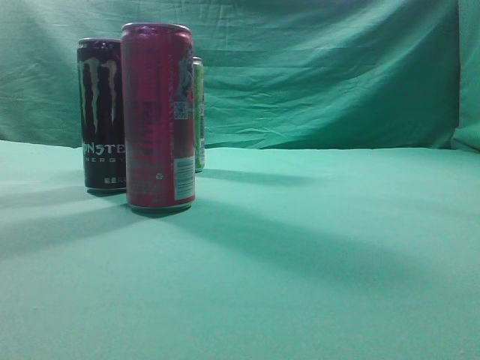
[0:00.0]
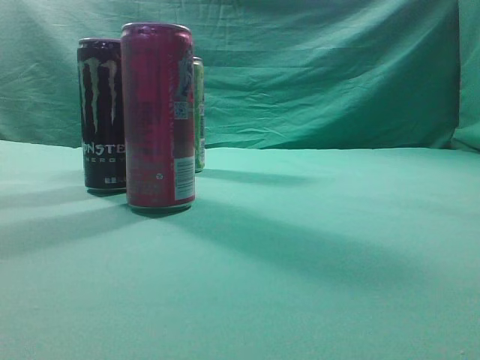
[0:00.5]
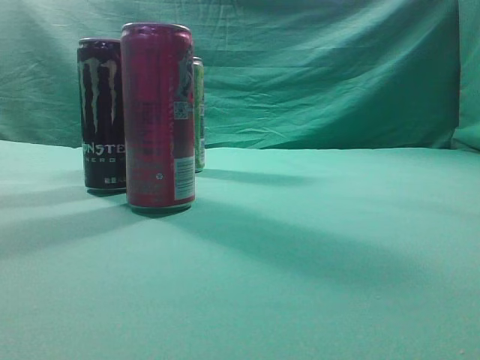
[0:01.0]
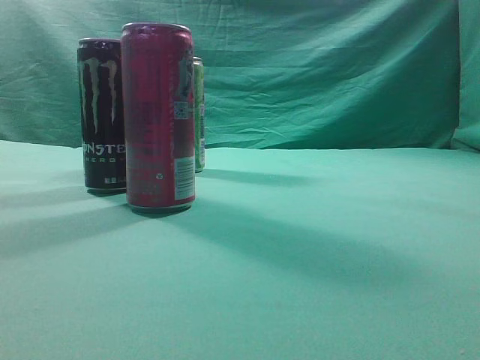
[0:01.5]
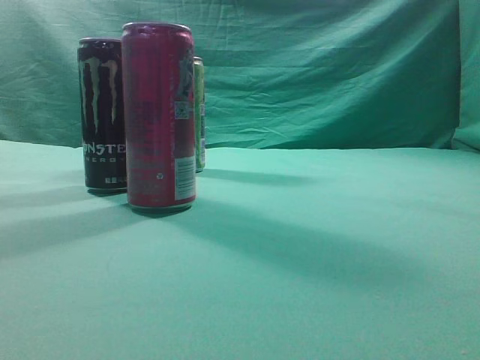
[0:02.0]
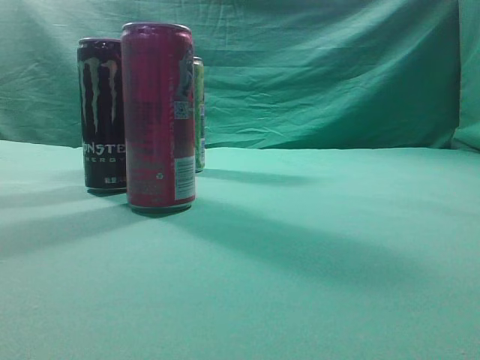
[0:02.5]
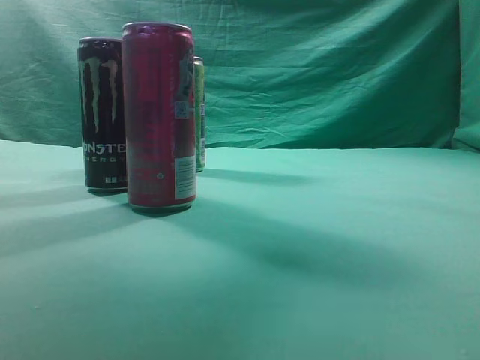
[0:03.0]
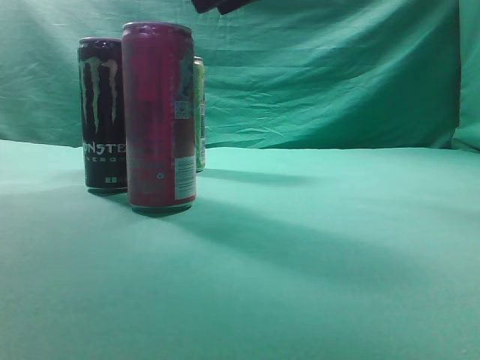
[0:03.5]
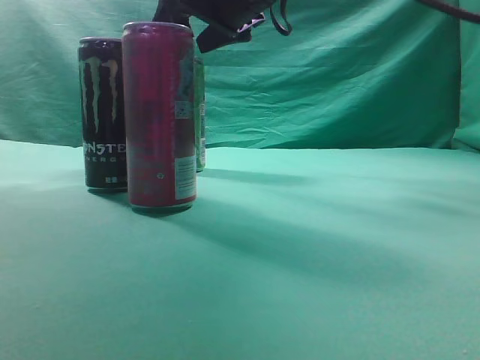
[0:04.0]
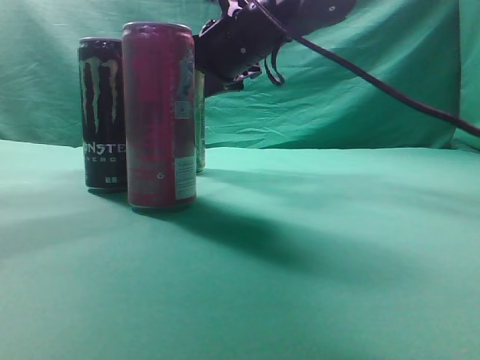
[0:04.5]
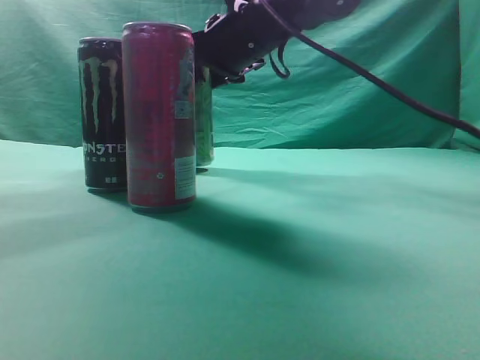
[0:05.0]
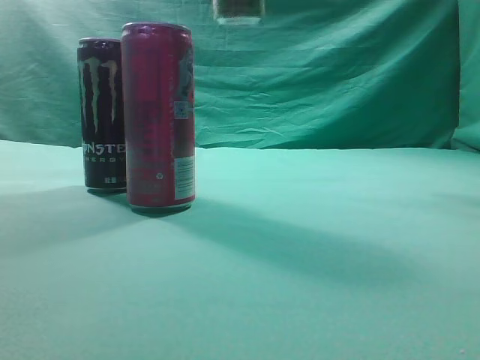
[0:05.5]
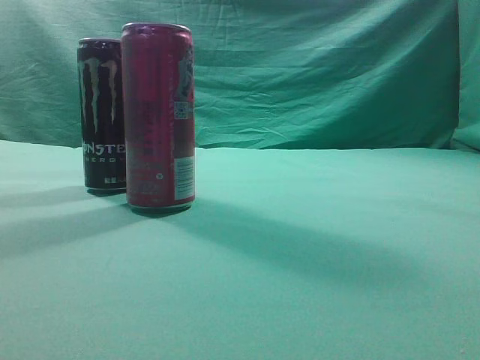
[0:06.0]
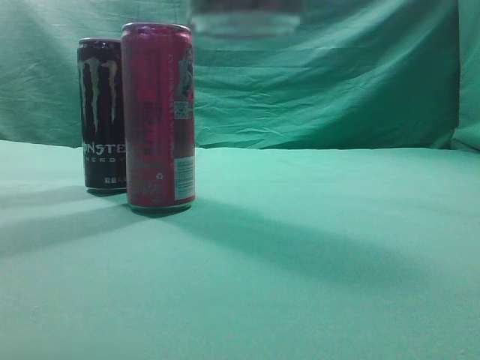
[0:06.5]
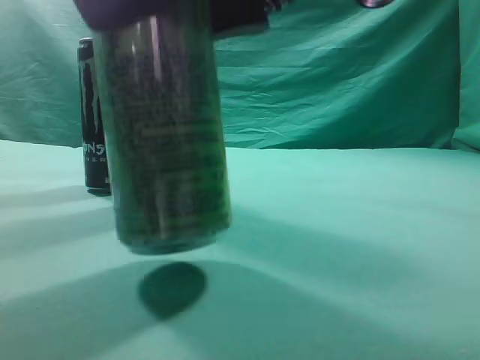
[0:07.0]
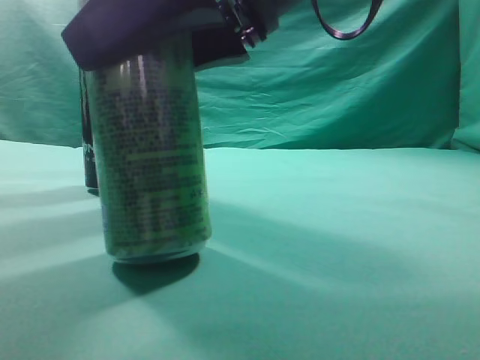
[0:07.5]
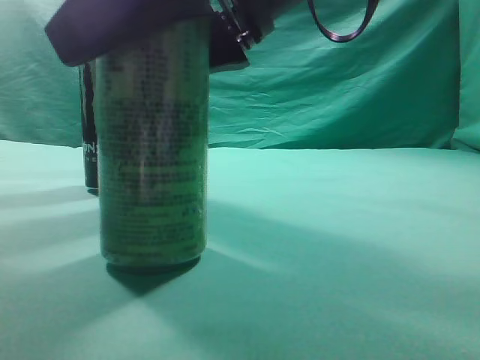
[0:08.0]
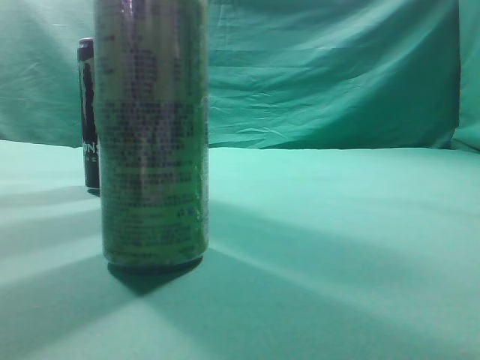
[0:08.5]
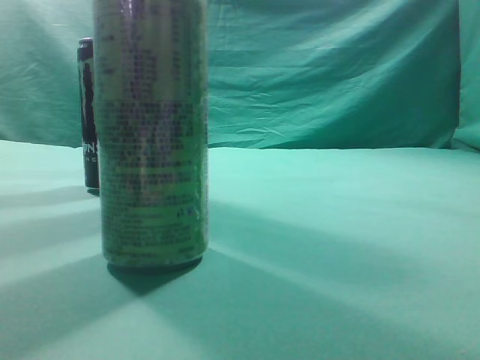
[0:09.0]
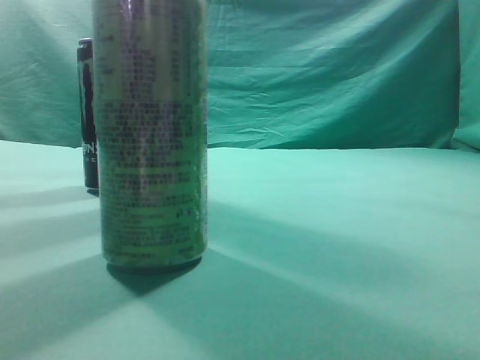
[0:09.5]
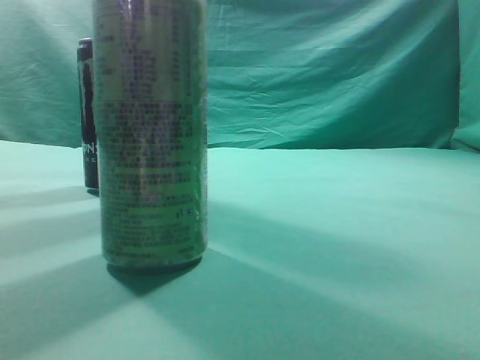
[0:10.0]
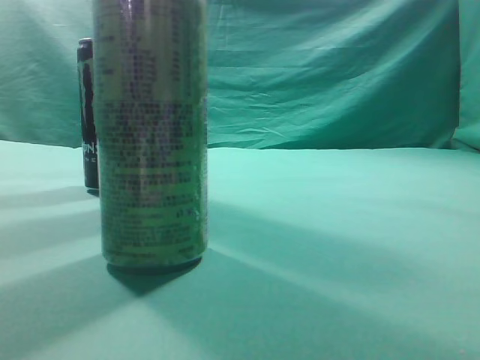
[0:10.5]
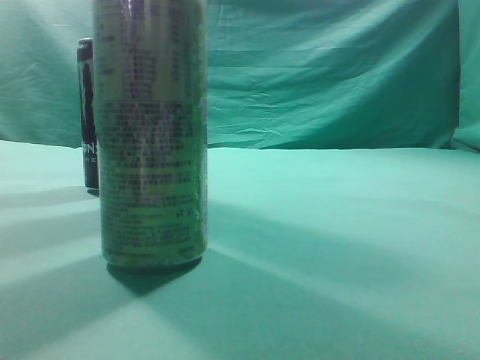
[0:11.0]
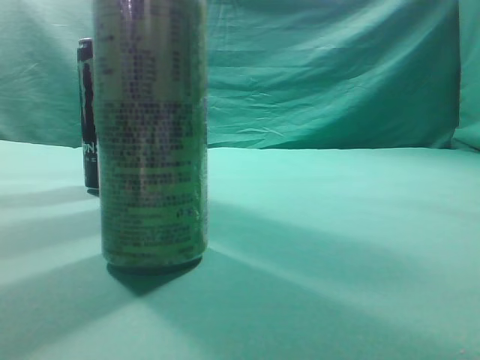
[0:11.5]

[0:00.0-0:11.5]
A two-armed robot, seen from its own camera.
Task of the whole recording: move one drink among three beverages.
Step, 0:00.0 to 0:05.0: Grasp the beverage bottle placed at the back of the desk.
Step, 0:05.5 to 0:08.0: Place the beverage bottle to the front of the table.
0:02.0 to 0:04.0: The right gripper travels forward and to the left by roughly 50 cm, and opens.
0:04.0 to 0:06.0: The right gripper shifts roughly 30 cm backward, upward and to the right.
0:06.0 to 0:07.5: The right gripper is displaced downward and to the left by some 25 cm.
0:07.5 to 0:09.5: The right gripper travels to the right, upward and backward by roughly 30 cm, and closes its fingers.
